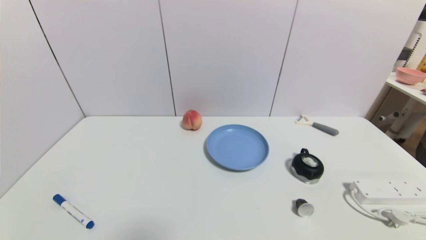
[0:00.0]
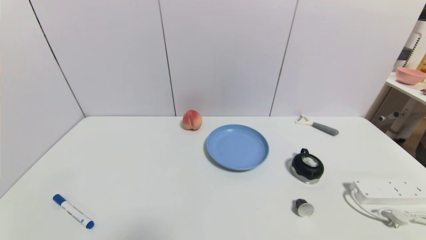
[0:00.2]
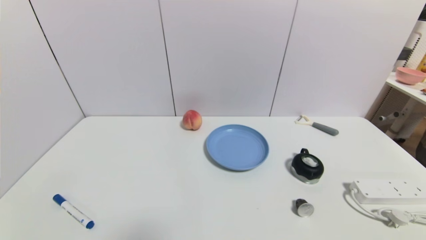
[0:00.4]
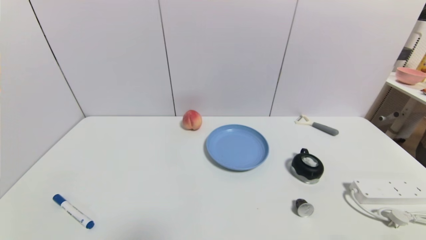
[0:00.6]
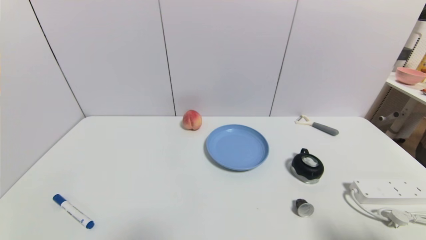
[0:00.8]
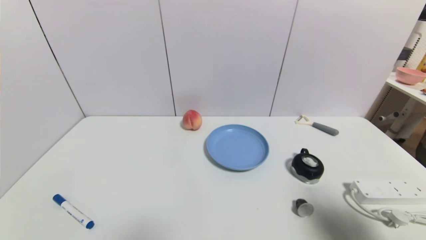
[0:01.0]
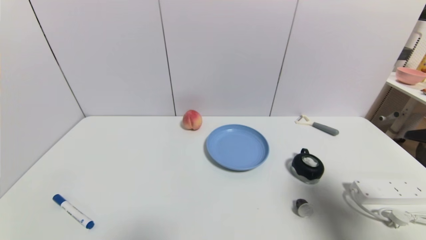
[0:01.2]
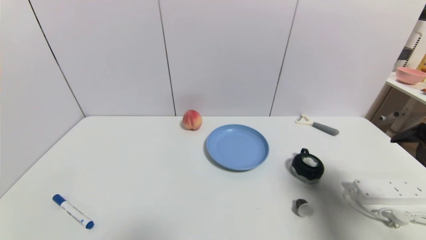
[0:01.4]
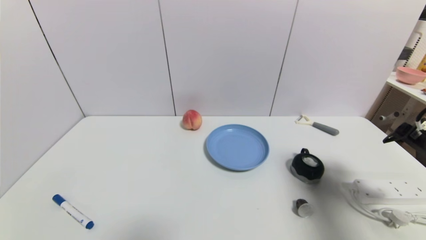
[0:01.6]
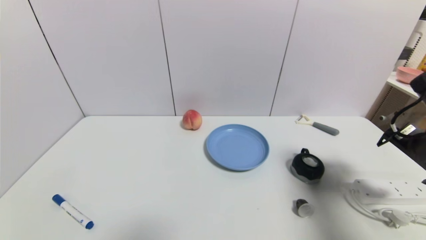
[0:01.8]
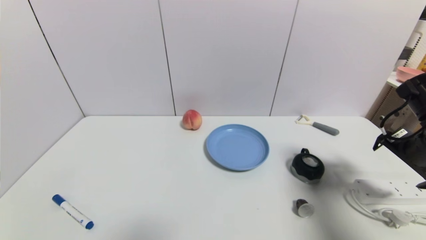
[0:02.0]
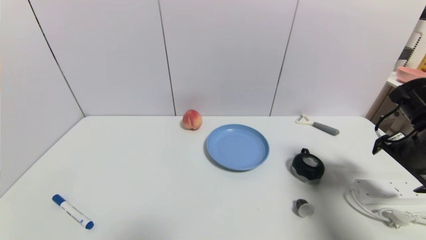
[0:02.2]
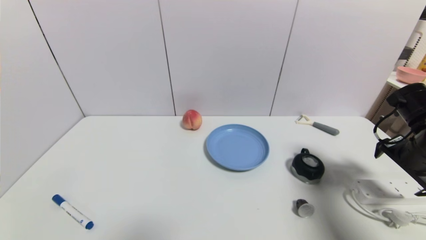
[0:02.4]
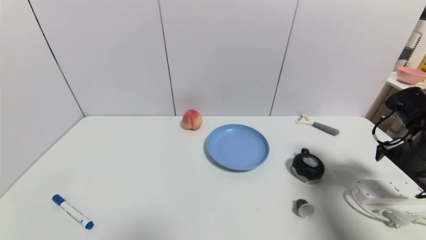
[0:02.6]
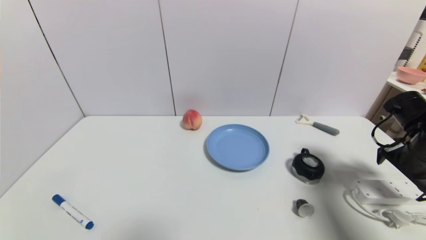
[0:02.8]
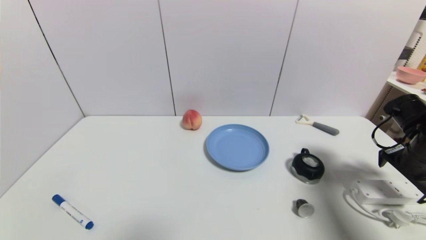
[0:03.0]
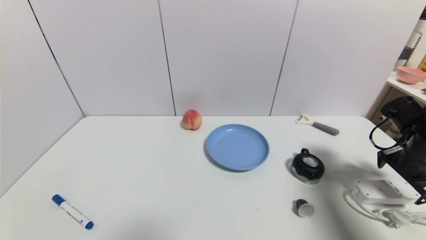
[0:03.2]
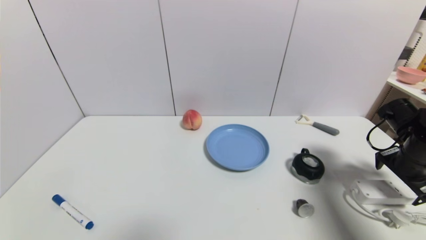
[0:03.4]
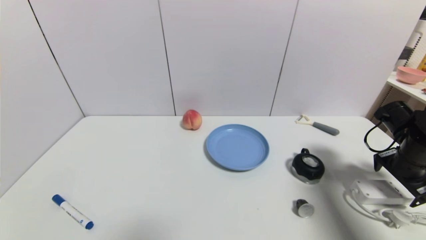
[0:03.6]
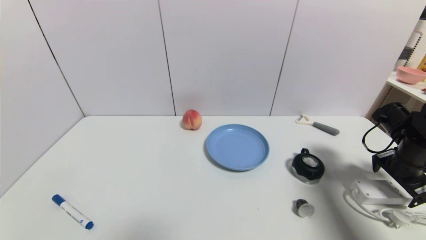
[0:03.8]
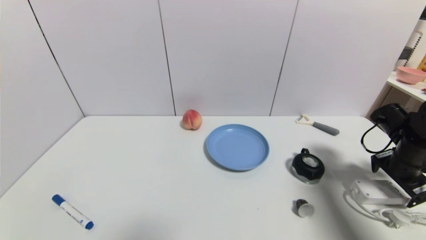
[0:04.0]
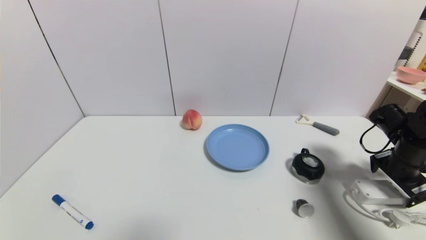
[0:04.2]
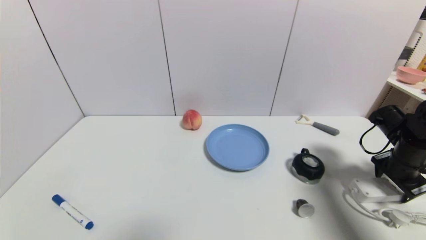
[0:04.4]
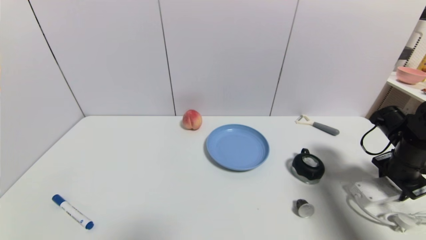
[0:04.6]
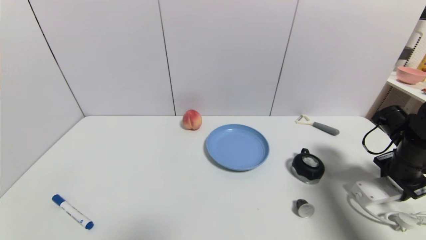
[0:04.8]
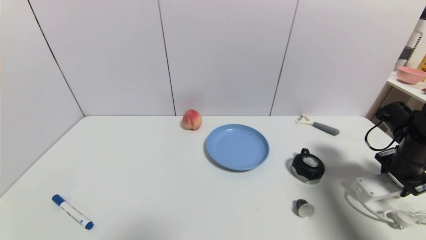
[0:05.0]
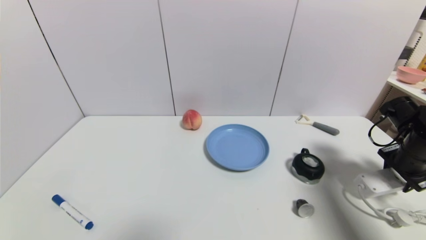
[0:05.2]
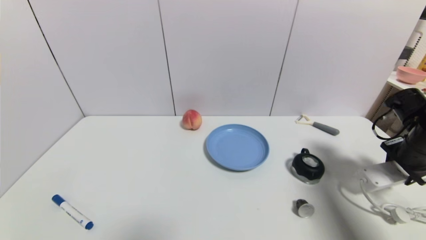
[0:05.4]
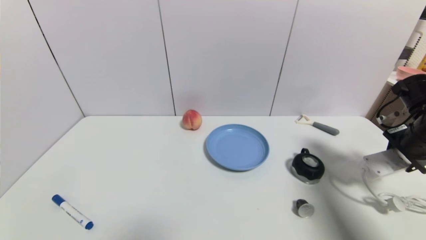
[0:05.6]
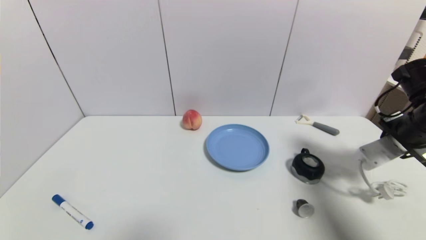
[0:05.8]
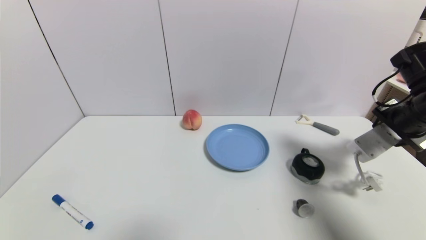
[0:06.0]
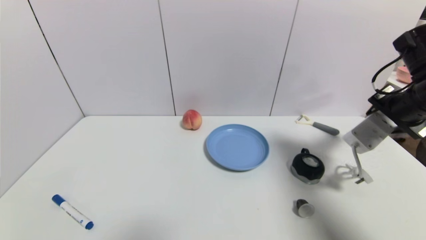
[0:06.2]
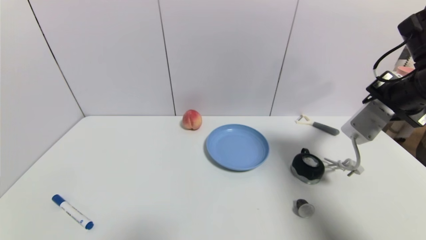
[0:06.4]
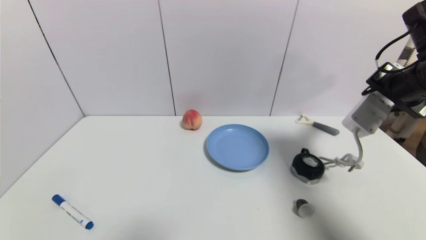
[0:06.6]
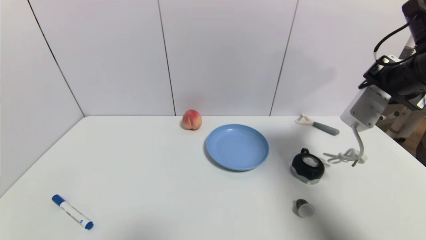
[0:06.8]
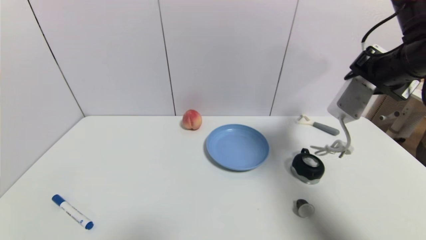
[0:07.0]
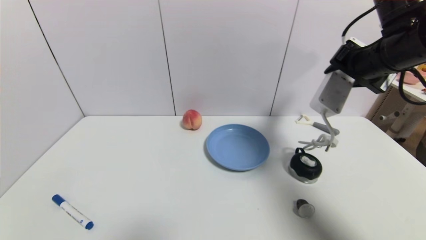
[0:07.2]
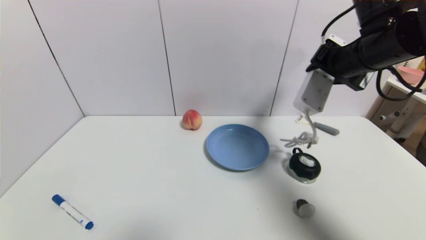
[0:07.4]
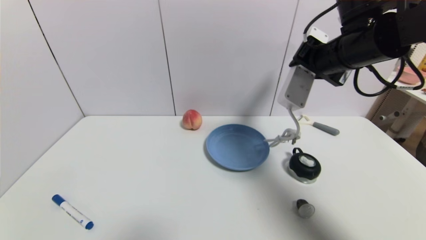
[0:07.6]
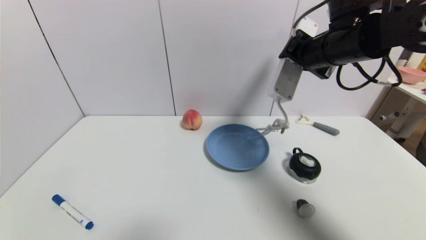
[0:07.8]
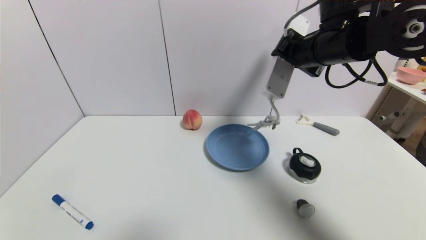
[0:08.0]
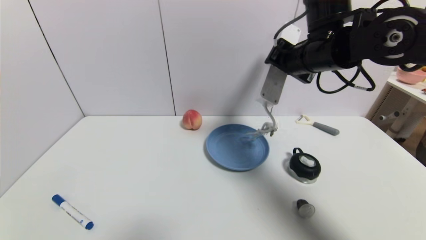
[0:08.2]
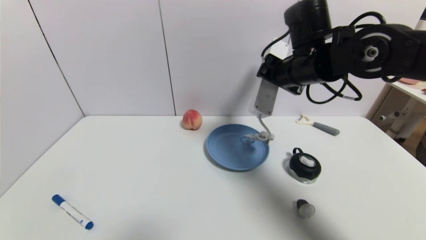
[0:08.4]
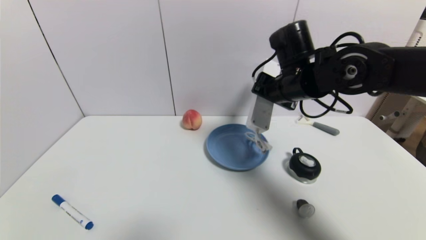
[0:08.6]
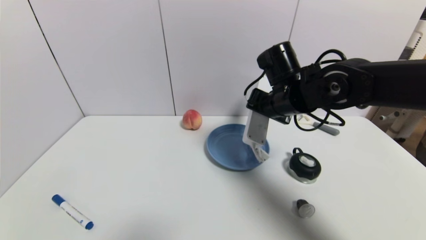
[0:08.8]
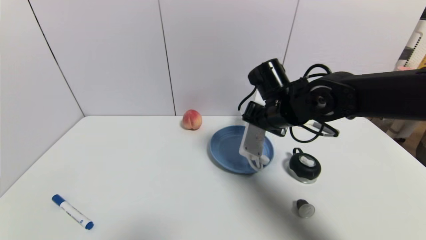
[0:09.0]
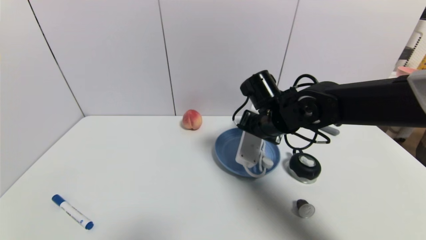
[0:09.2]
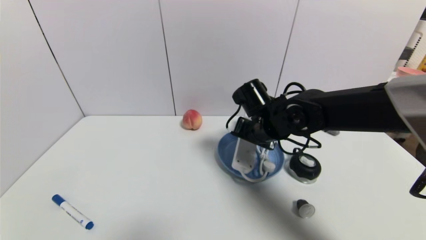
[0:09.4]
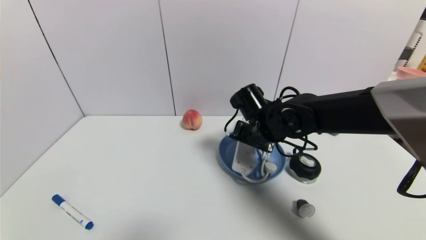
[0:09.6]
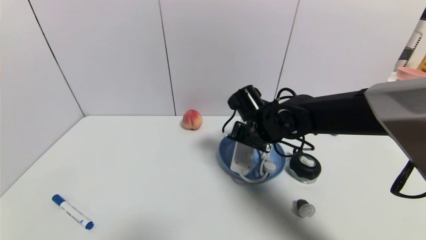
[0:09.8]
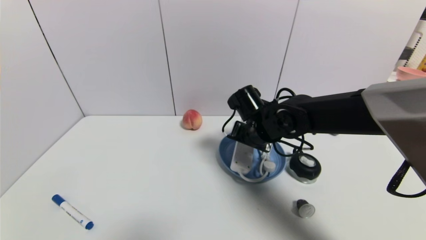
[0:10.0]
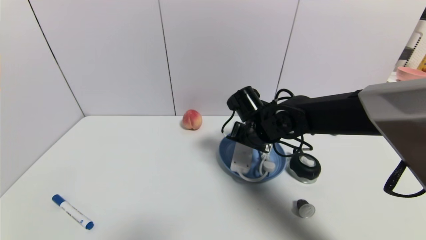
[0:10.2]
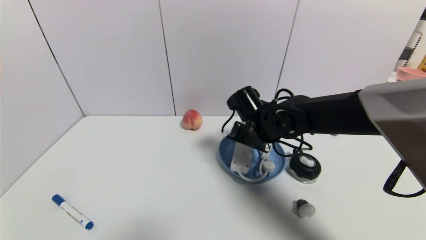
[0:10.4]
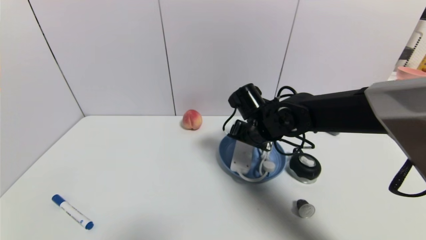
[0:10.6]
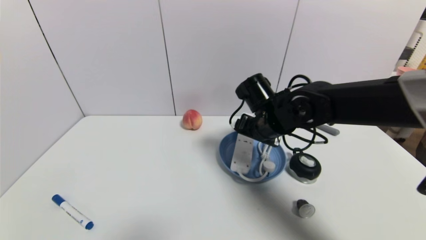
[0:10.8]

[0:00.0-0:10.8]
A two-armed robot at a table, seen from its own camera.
Task of the whole recording: use a gripper to pick the target object and place on the blue plate.
Step, 0:00.0 to 0:04.6: Grasp the plugboard with the right gripper.
Step, 0:04.8 to 0:10.2: Place the plugboard on the blue plate with the right gripper.
0:00.0 to 0:01.6: The right gripper is displaced forward and upward by approximately 30 cm.
0:01.6 to 0:03.0: The right gripper travels downward and forward by approximately 10 cm.
0:03.0 to 0:04.6: The right gripper closes up.
0:04.6 to 0:06.2: The right gripper travels upward and to the left by roughly 15 cm.
0:06.2 to 0:07.8: The right gripper travels to the left and upward by about 15 cm.
0:07.8 to 0:09.2: The right gripper moves downward and to the left, some 15 cm.
0:09.2 to 0:10.8: The right gripper opens.

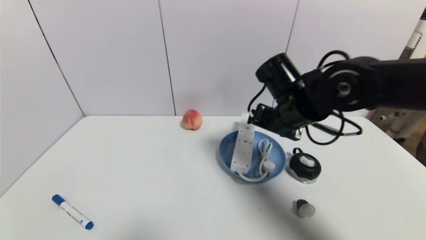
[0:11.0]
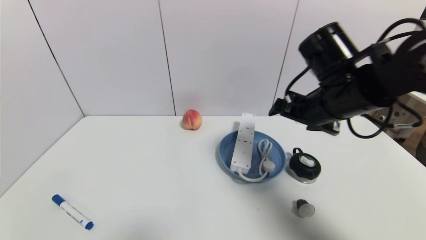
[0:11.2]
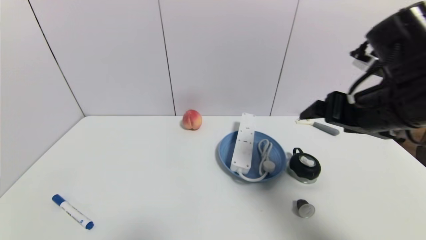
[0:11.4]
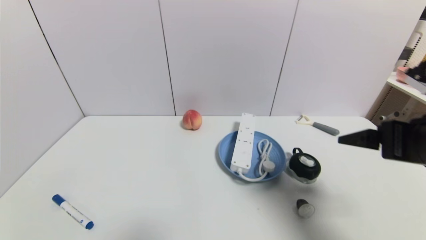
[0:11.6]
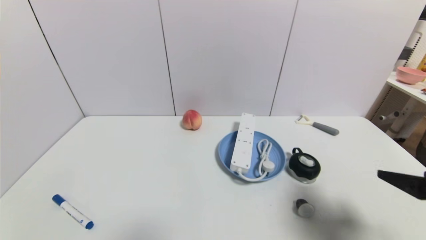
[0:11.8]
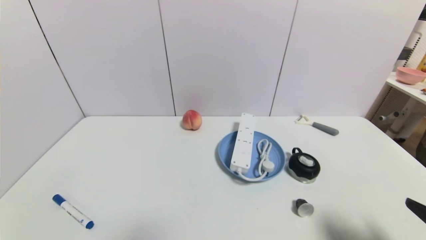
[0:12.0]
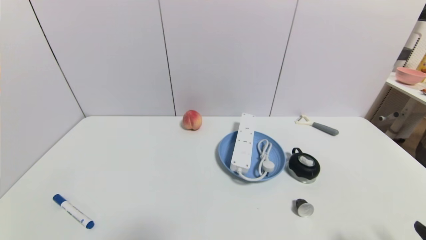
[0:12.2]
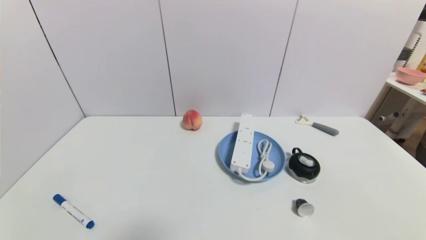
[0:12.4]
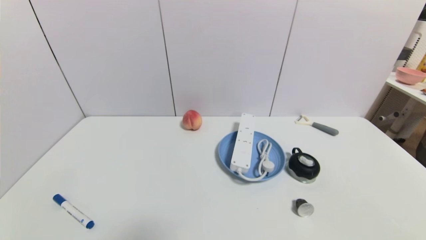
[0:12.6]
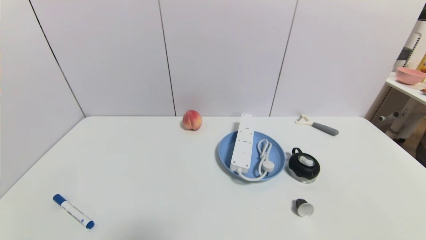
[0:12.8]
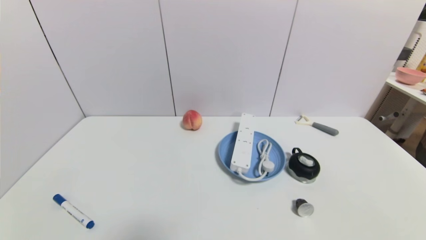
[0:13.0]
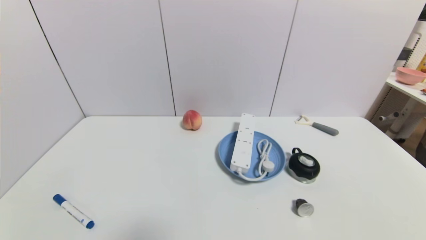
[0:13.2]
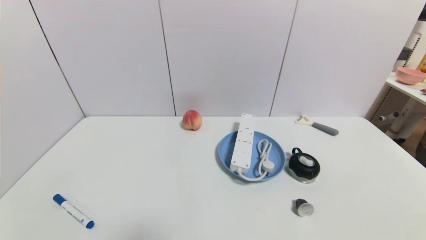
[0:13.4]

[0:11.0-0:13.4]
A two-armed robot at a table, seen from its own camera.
Task of the whole recording: use a gripper to pick the target object and place on the blue plate.
0:11.0 to 0:12.2: The right gripper moves backward and to the right, roughly 35 cm.
